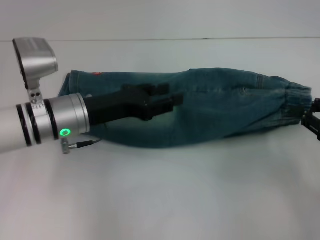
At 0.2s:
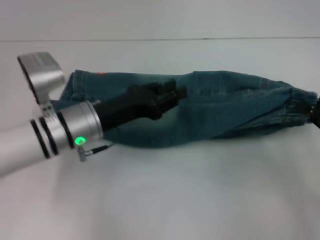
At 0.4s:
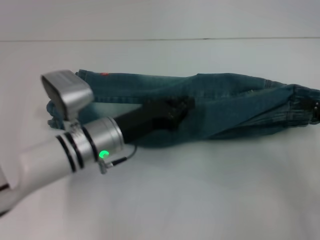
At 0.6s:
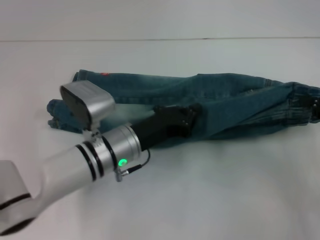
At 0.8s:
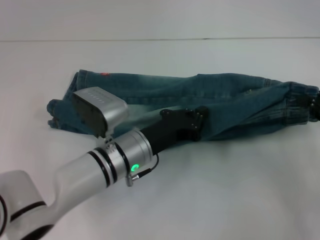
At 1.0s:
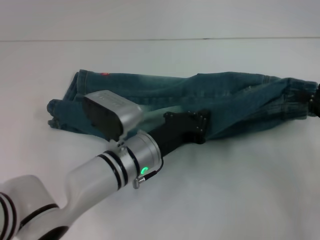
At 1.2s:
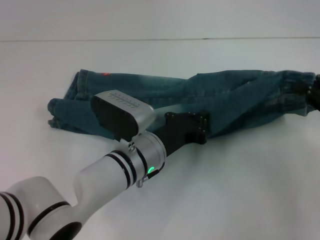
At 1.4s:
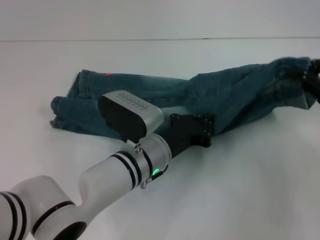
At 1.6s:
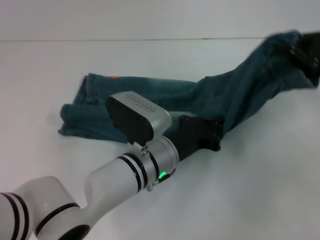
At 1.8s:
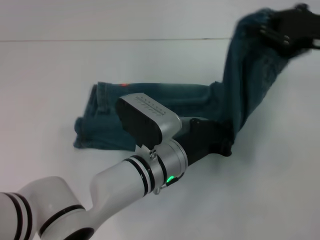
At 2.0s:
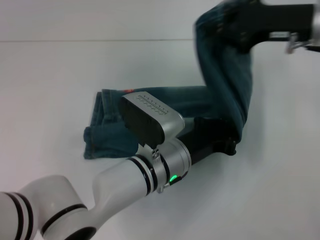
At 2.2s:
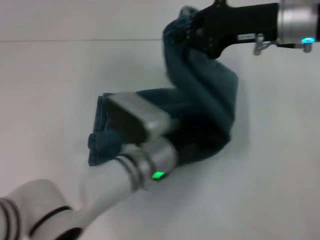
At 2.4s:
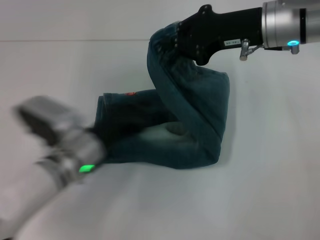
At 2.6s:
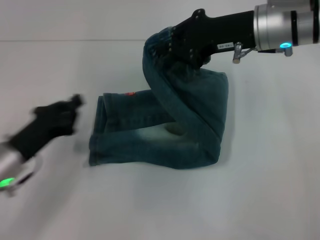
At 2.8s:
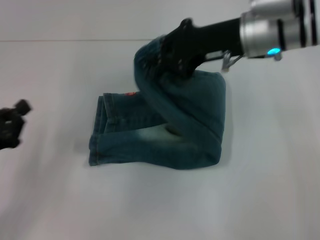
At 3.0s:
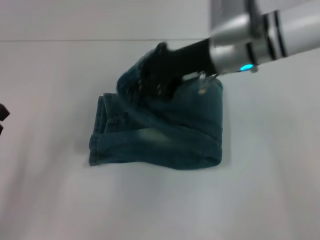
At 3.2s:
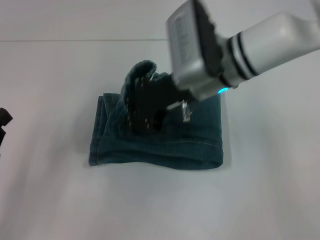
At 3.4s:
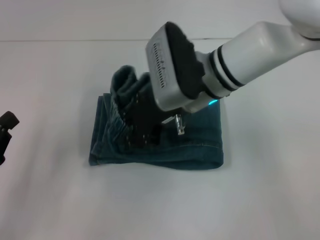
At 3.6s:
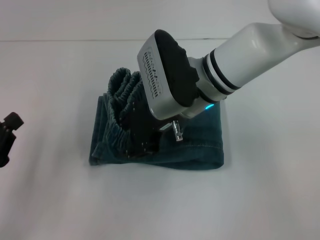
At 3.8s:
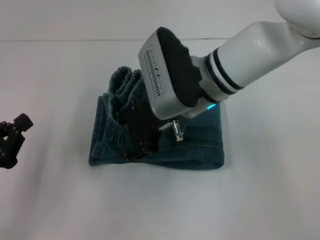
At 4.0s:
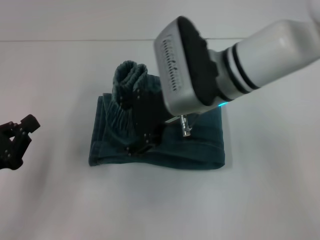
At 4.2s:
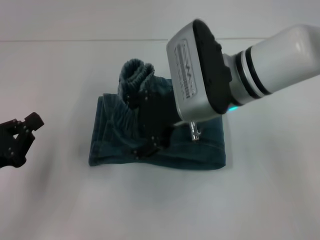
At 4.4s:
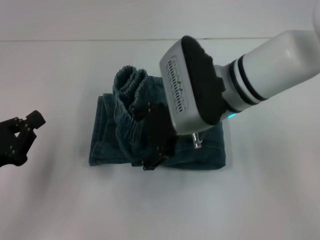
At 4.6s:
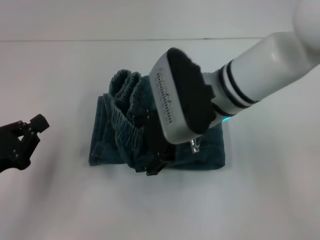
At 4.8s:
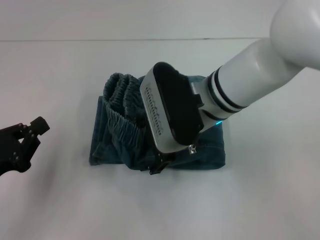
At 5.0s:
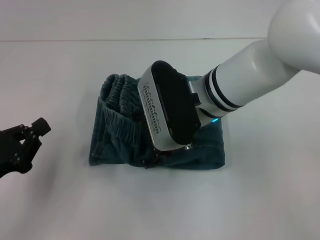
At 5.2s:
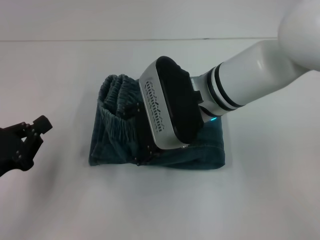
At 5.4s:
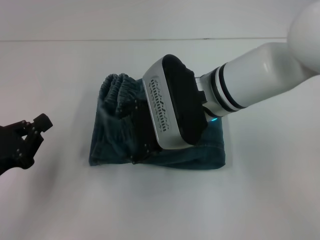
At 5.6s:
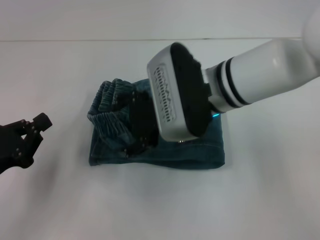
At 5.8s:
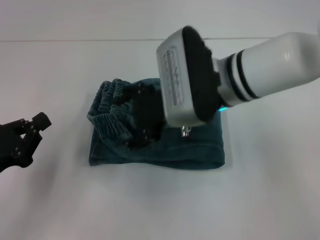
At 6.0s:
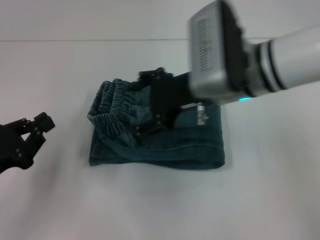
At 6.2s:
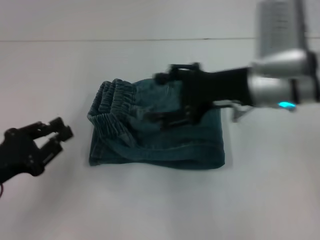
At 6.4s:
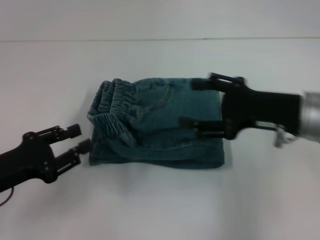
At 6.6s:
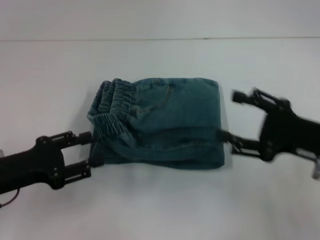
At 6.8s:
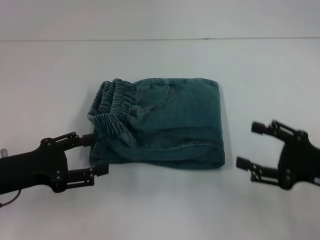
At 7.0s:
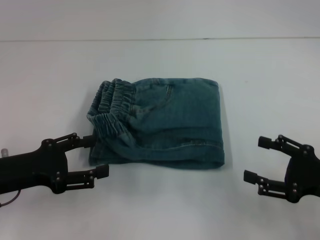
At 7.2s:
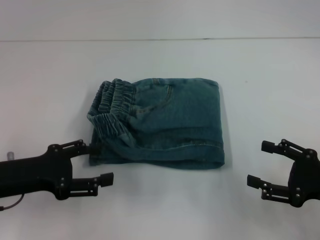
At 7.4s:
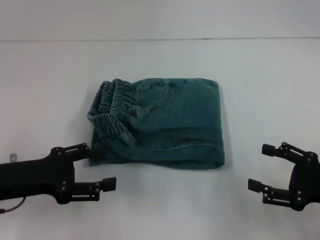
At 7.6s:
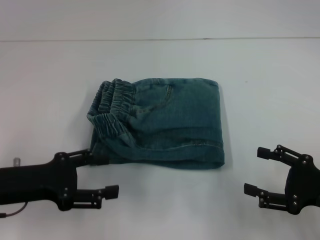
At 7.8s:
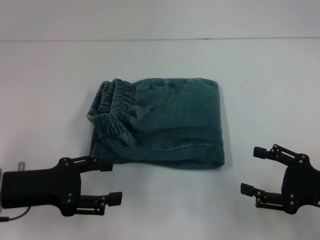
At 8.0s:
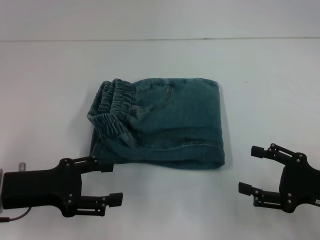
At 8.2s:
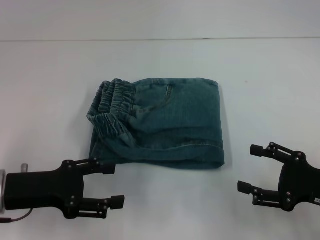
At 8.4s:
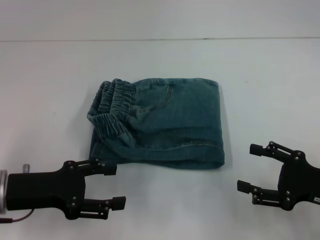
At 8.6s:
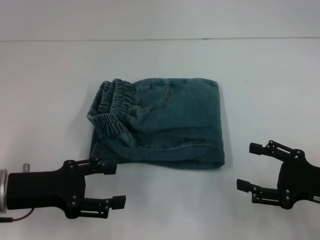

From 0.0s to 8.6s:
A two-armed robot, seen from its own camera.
Step, from 0.0s to 2.0s: Press the middle of the pants with your left hand.
Step, from 2.4s to 5.4s: Fold to the left with your right hand.
From 0.0s to 1.4s: The left gripper heads to the right and downward, covering roughly 15 cm, and closes up, while the right gripper travels upward by some 5 cm.
From 1.4s to 2.8s: The left gripper shifts some 25 cm to the left. Meanwhile the right gripper heads to the left and forward, covering roughly 20 cm.
From 2.8s to 4.4s: The right gripper is displaced to the left and backward by approximately 10 cm, and opens.
From 4.4s to 5.8s: There are only small adjustments of the grippers.
From 5.8s to 7.2s: The right gripper goes approximately 30 cm to the right, backward and downward, while the left gripper shifts by about 5 cm, and opens its fingers.
From 7.2s to 8.6s: The grippers stay close to where they were, moving slightly.
